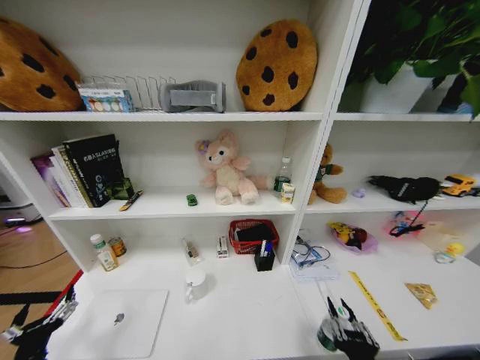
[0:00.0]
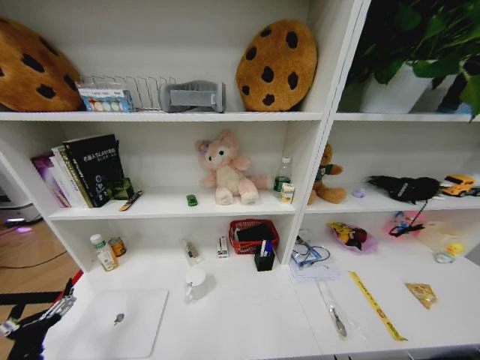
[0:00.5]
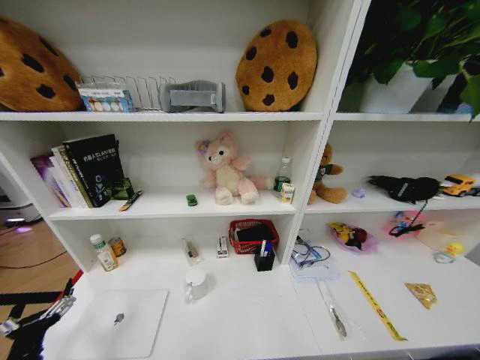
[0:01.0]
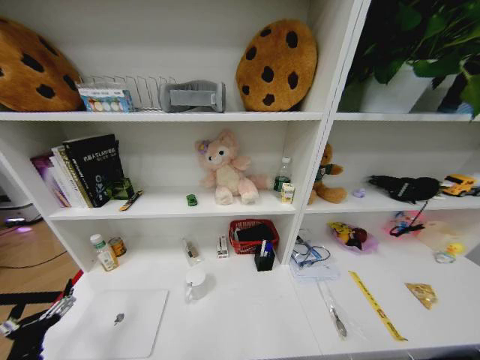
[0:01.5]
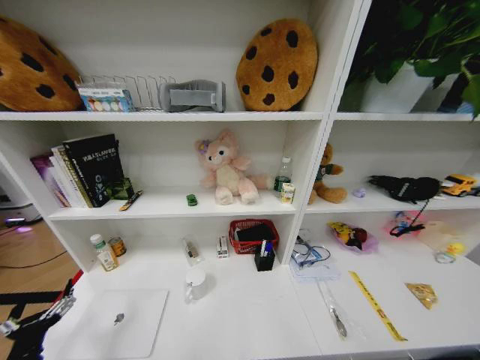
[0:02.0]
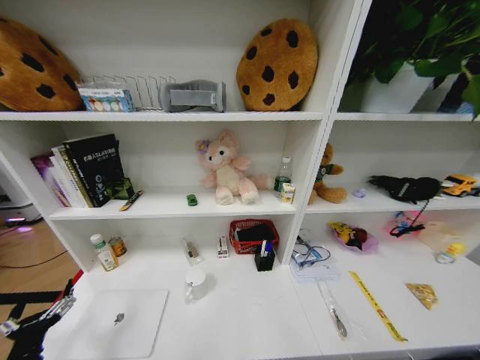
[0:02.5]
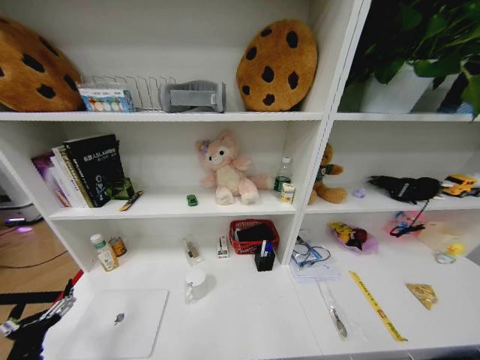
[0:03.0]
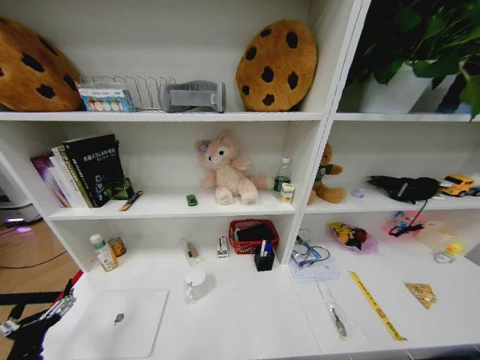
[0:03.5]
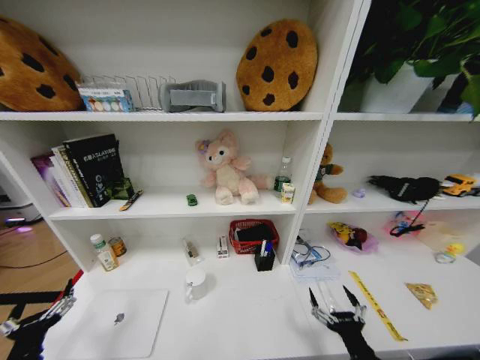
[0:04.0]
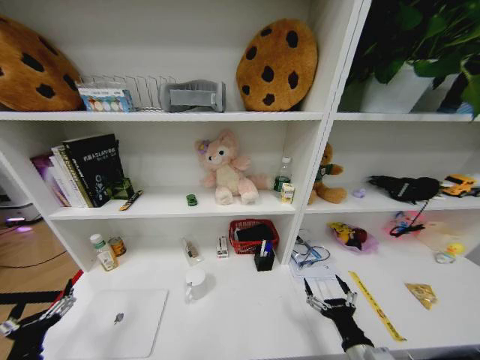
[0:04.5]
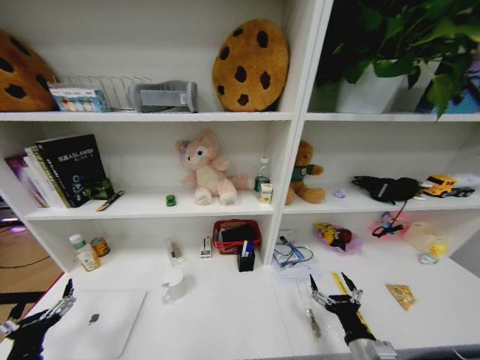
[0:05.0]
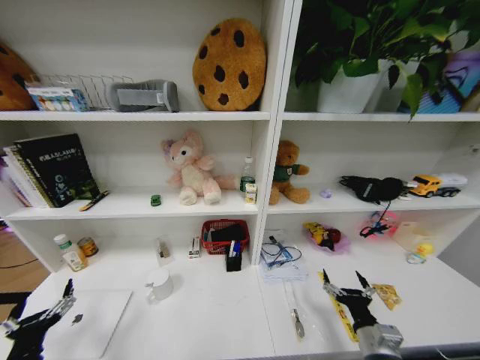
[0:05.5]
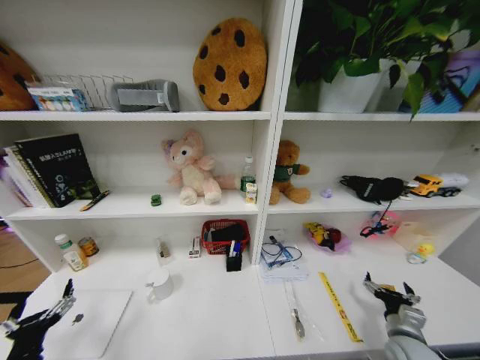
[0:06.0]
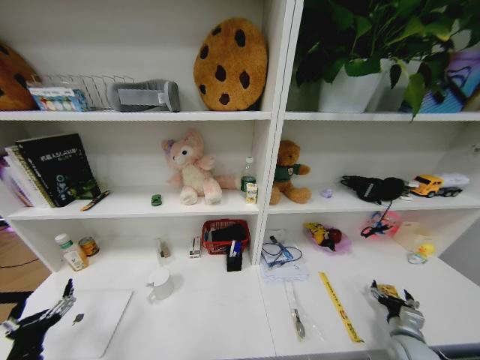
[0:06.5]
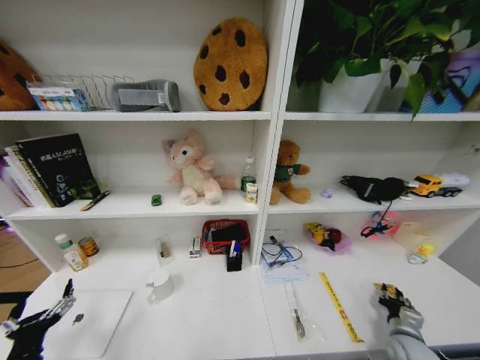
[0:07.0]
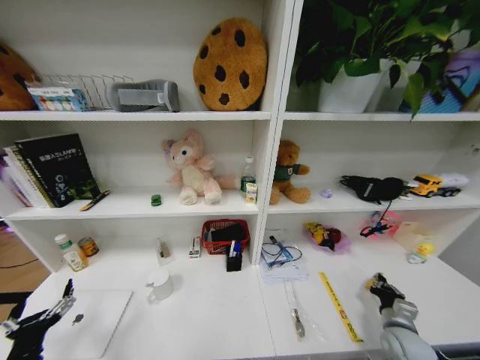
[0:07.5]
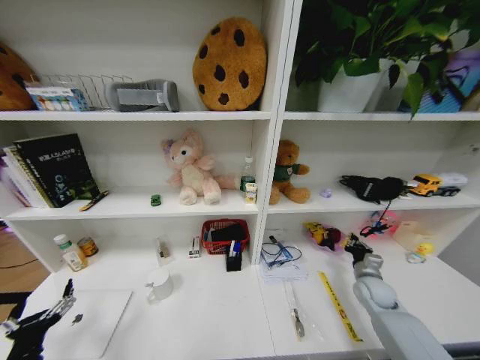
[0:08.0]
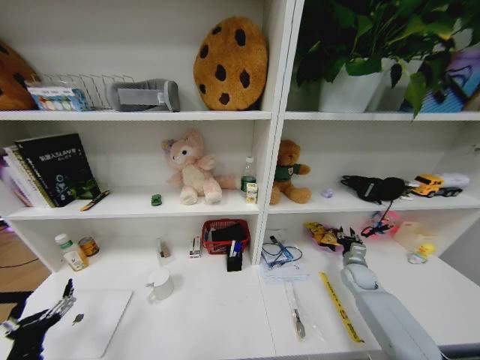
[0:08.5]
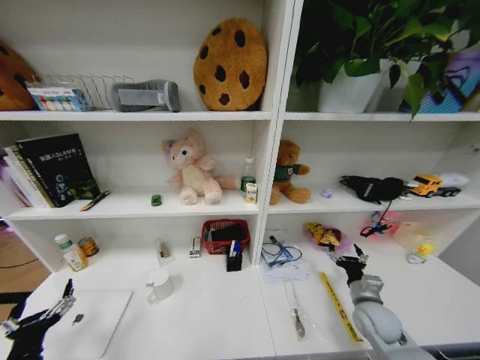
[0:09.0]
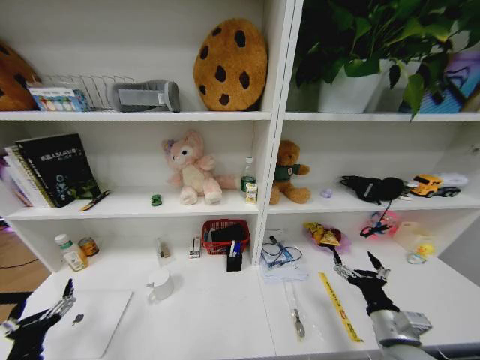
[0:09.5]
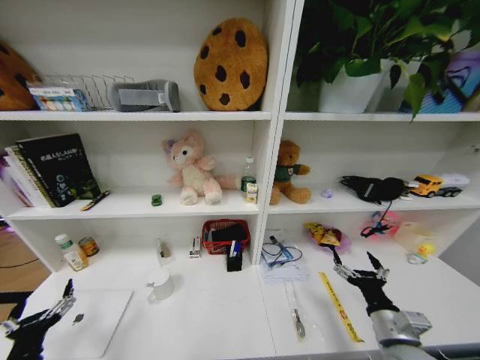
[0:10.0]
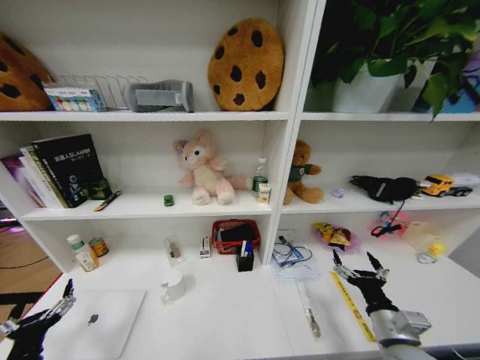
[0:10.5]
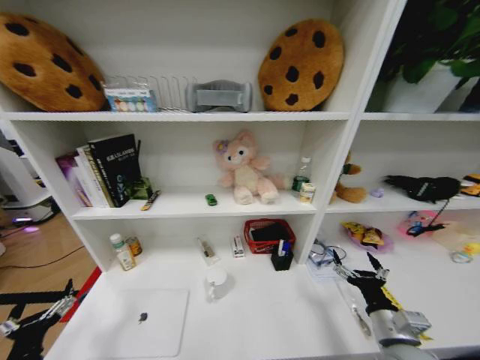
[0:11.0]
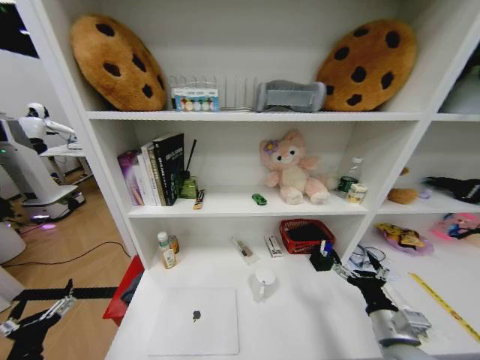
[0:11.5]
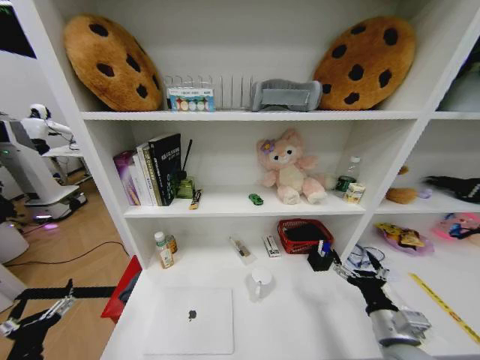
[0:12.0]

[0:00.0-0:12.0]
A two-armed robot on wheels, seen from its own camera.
Task of the whole recording: Organize the objects on the table.
0:00.0 to 0:02.0: The right gripper shifts roughly 35 cm downward.
0:02.0 to 0:04.0: The right gripper travels upward by about 30 cm, and opens.
0:04.0 to 0:06.0: The right gripper shifts some 20 cm to the right and forward.
0:06.0 to 0:08.0: The right gripper heads forward, covering about 15 cm, and closes.
0:08.0 to 0:10.0: The right gripper heads backward and to the left, covering about 20 cm, and opens.

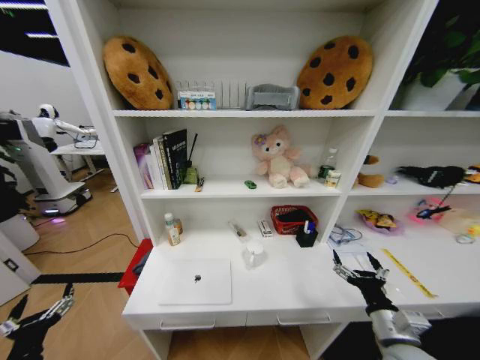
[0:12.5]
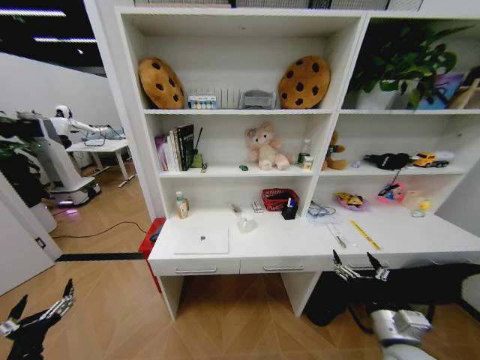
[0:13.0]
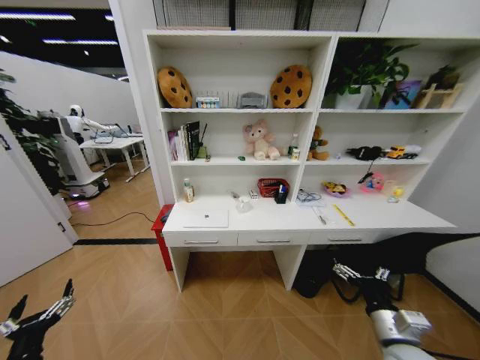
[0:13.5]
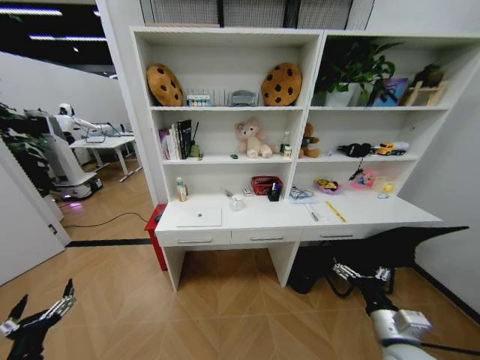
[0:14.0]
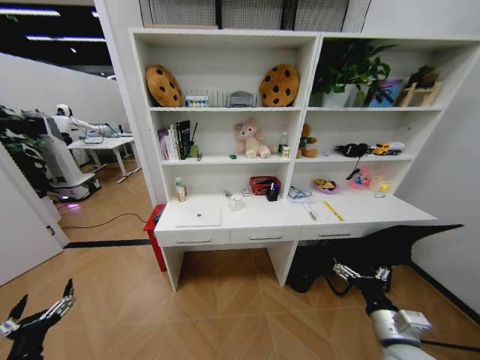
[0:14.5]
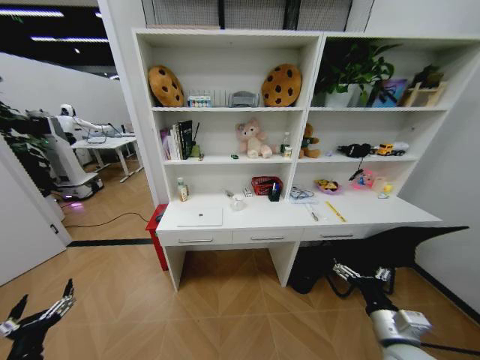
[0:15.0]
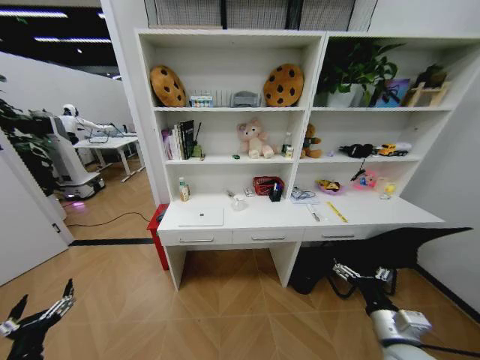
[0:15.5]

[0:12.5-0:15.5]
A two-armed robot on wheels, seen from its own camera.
Task of the whole recording: Organize the objects on the table.
0:14.0 to 0:15.5: Both grippers stay about where they are.

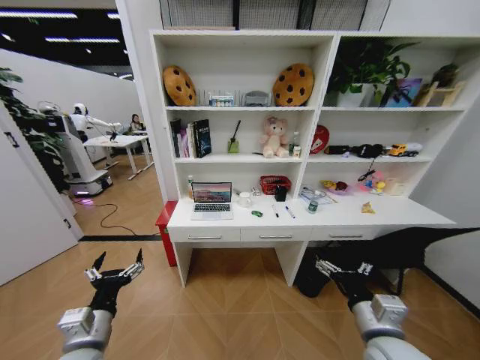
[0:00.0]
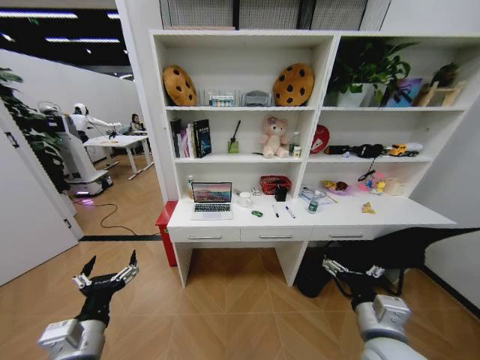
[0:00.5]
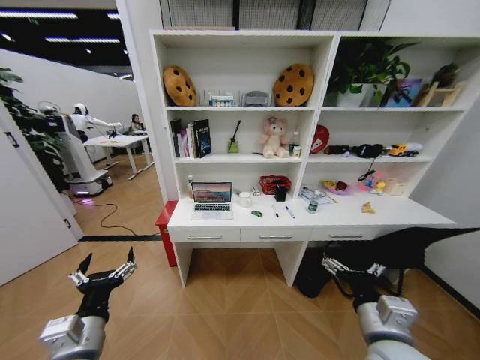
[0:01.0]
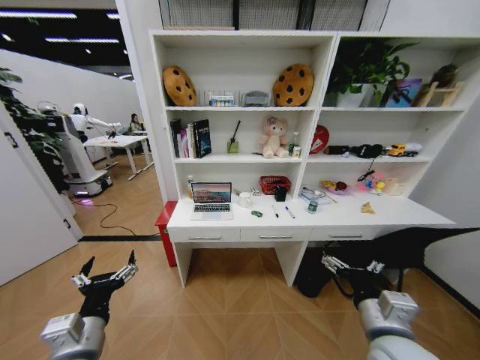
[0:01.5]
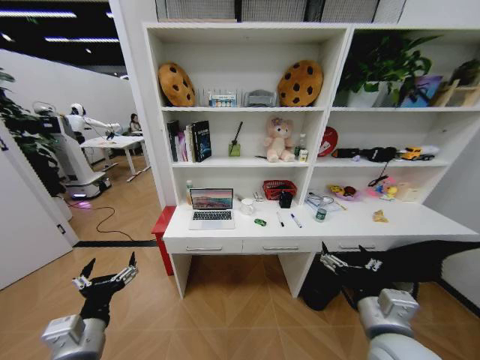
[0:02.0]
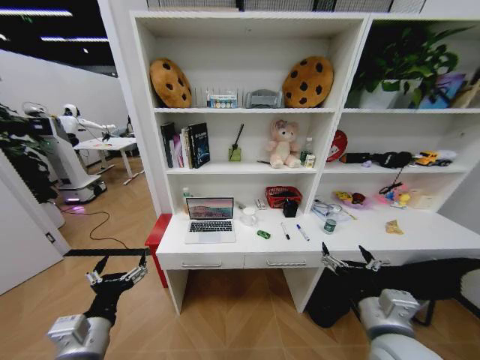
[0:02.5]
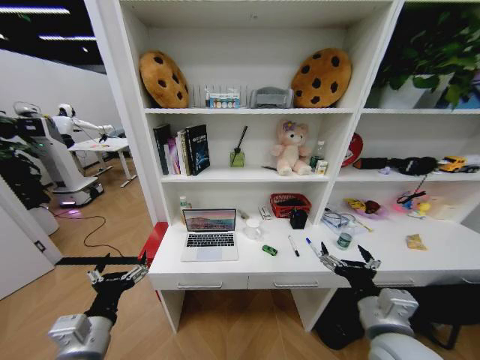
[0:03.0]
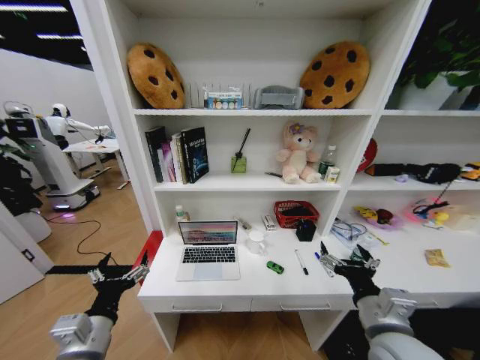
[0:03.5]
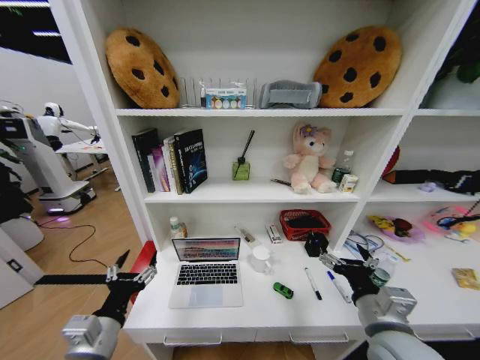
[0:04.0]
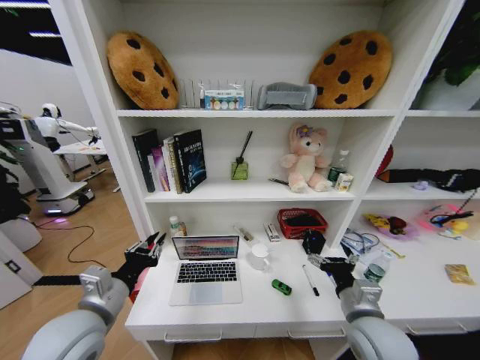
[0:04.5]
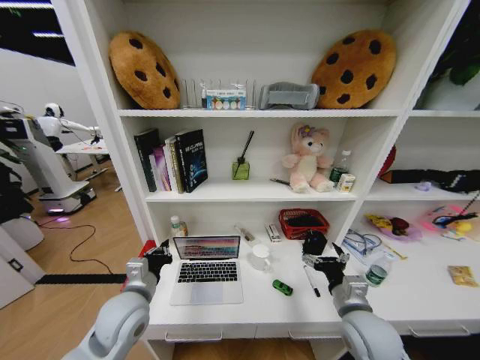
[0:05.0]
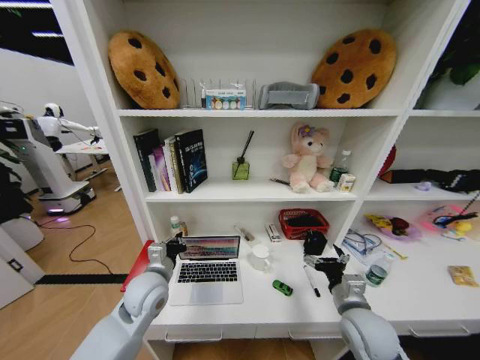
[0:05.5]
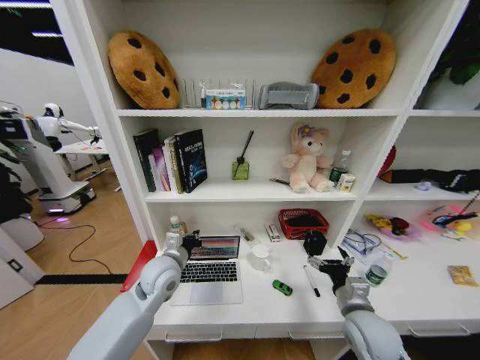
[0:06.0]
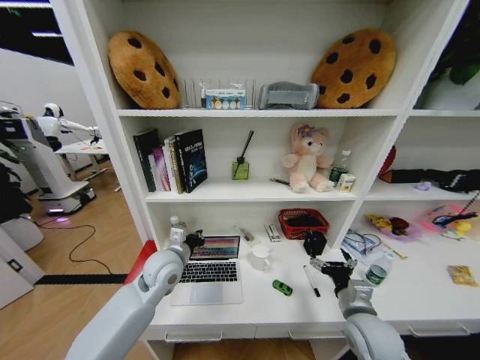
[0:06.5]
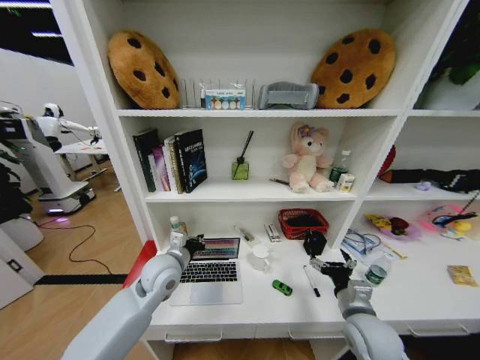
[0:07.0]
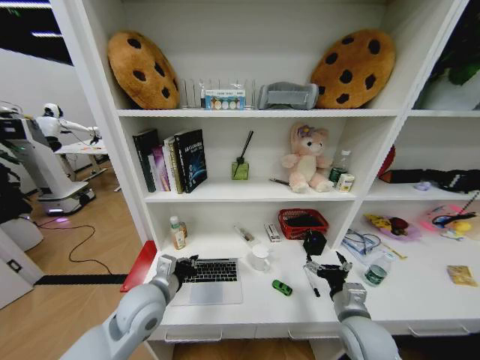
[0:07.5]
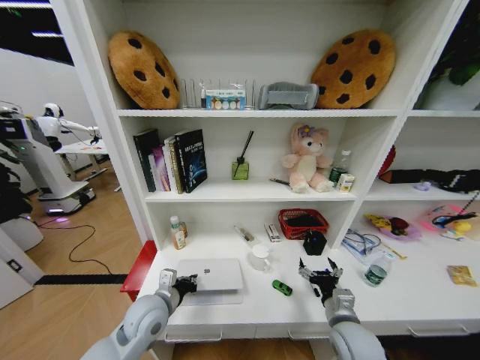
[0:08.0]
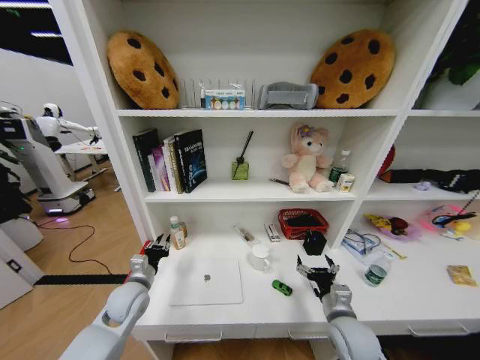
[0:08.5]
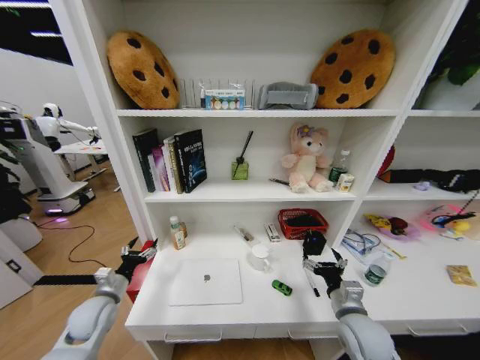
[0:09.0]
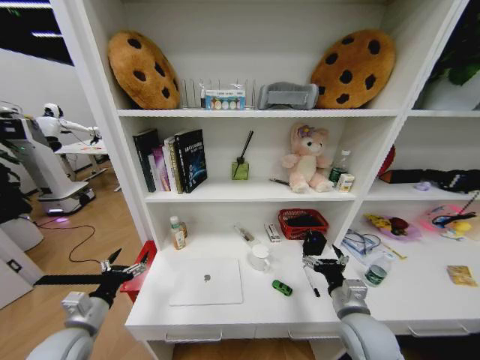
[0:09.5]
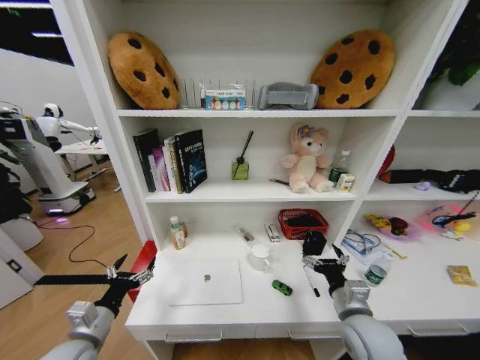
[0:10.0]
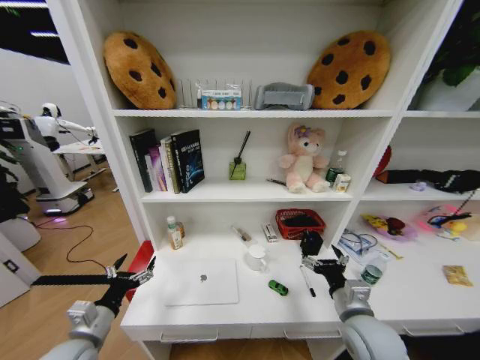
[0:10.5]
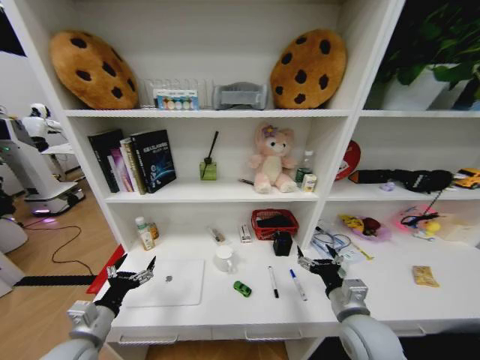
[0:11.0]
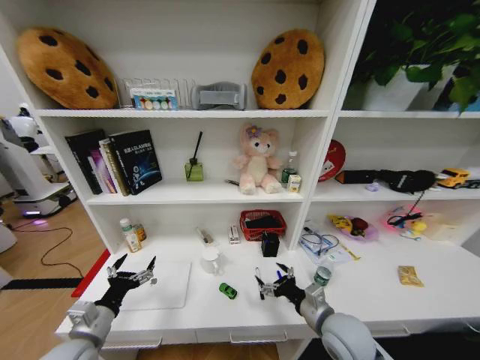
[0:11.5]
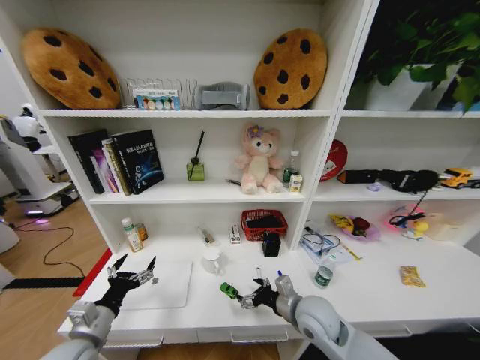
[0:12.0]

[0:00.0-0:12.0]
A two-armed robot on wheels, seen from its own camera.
Task of the whole recording: Organize the objects on the table.
0:04.0 to 0:06.0: The right gripper moves downward and forward, approximately 10 cm. The left gripper travels forward and to the right by some 20 cm, and closes.
0:06.0 to 0:08.0: The left gripper travels backward and downward by some 10 cm.
0:08.0 to 0:10.0: The right gripper is displaced upward by approximately 5 cm. The left gripper moves to the left and backward, about 15 cm, and opens.
0:10.0 to 0:12.0: The right gripper goes approximately 10 cm to the left and forward.
